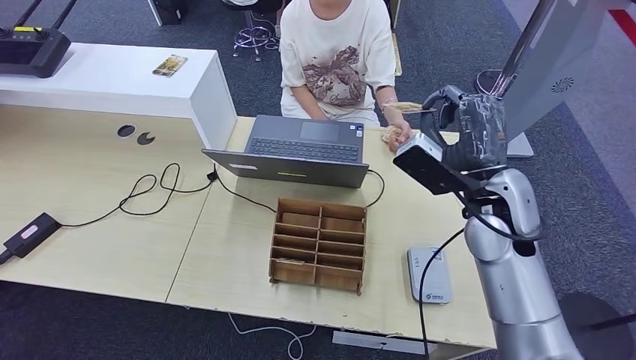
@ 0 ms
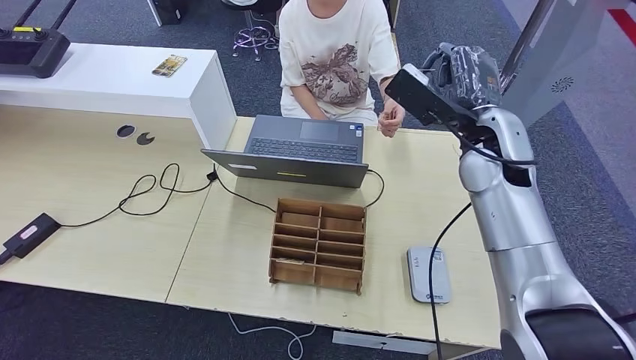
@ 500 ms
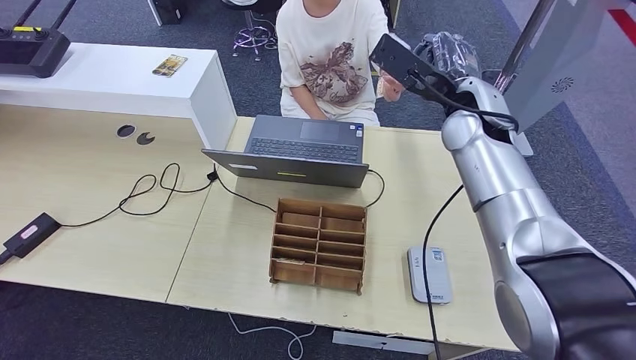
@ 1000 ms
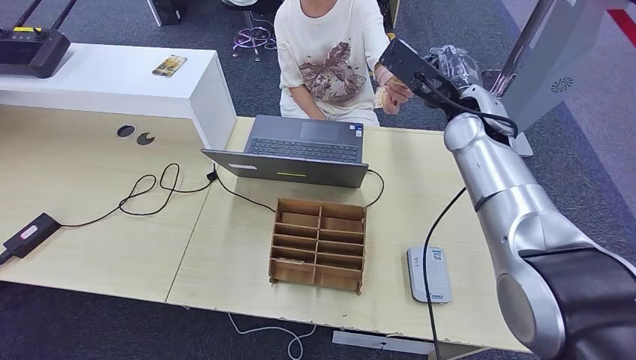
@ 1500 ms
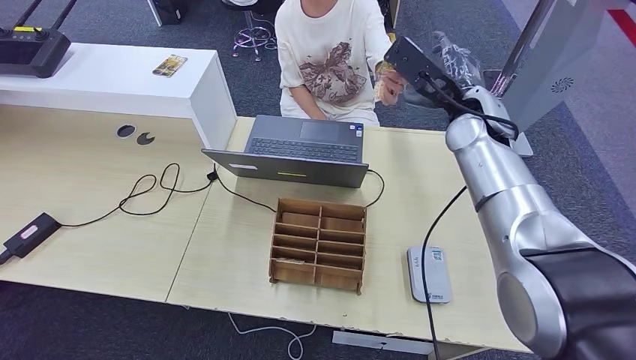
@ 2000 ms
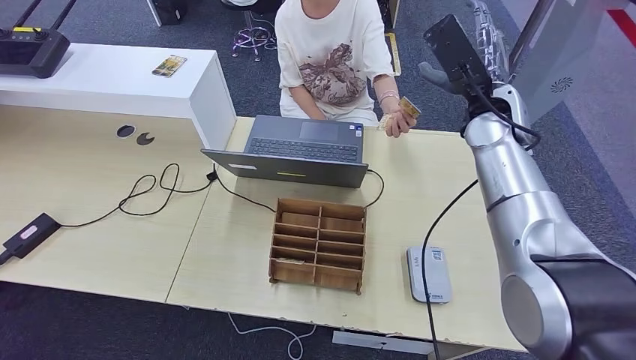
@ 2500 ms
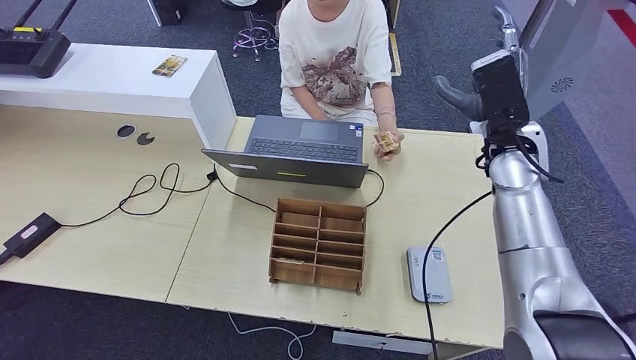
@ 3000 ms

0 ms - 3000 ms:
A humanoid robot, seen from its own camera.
Step, 0 ms - 3000 ms: Hand the room key to the person.
0 ms - 1500 ms: The right hand moves forward and upward, about 15 cm.
1500 ms - 3000 ms: The right hand moves some 5 cm.
